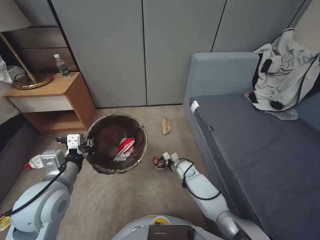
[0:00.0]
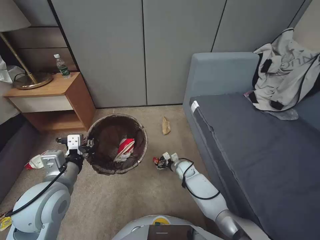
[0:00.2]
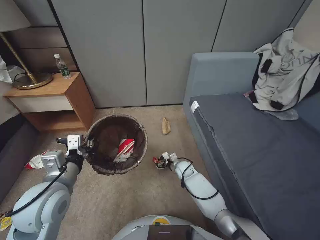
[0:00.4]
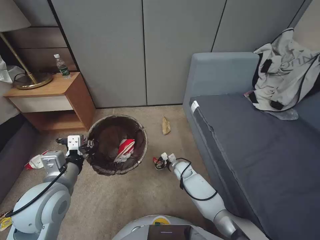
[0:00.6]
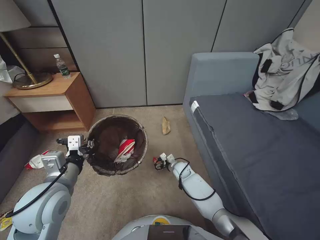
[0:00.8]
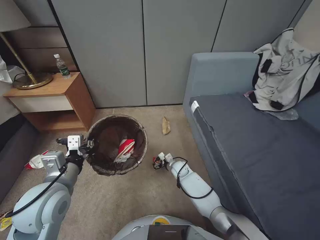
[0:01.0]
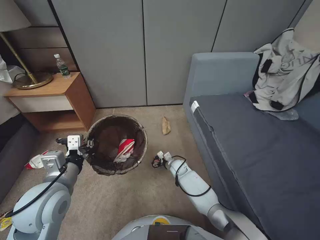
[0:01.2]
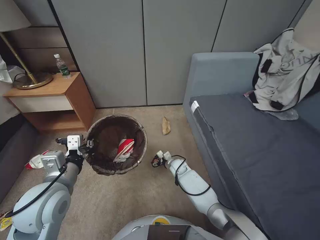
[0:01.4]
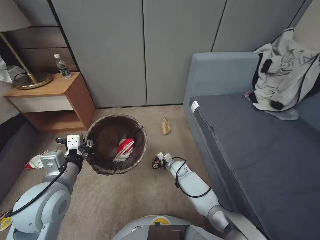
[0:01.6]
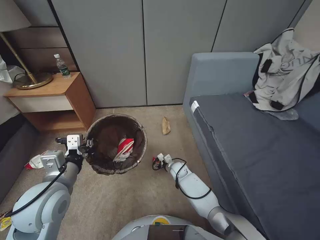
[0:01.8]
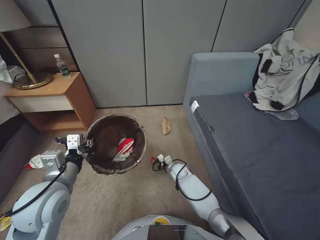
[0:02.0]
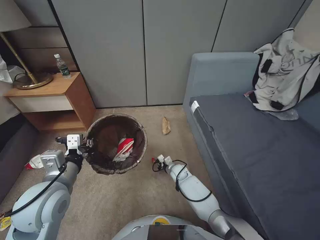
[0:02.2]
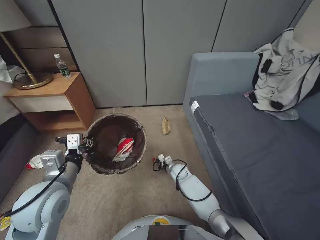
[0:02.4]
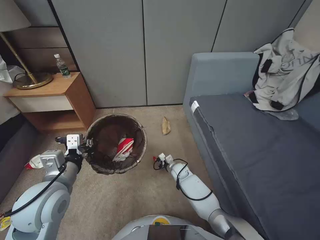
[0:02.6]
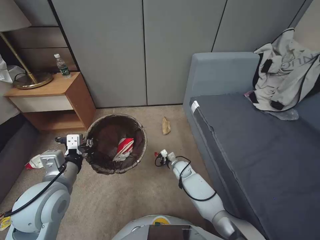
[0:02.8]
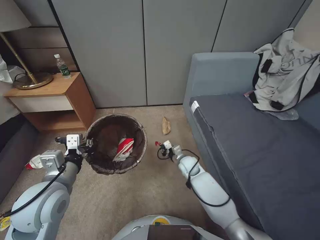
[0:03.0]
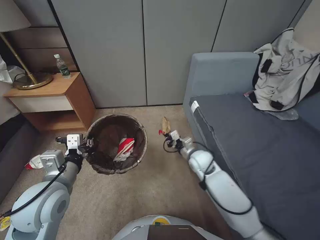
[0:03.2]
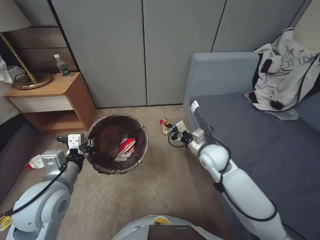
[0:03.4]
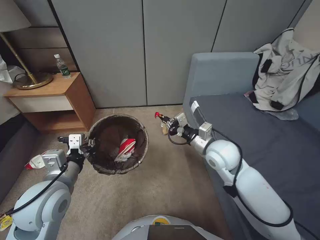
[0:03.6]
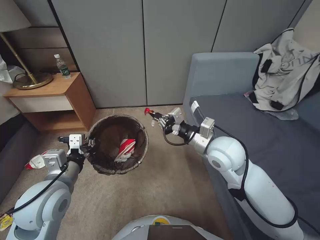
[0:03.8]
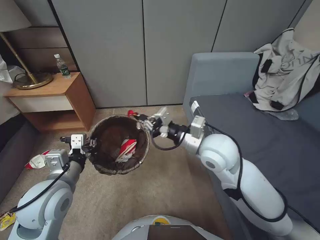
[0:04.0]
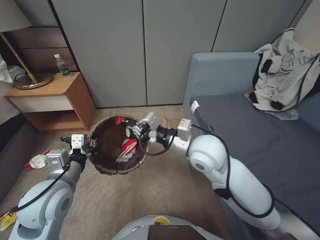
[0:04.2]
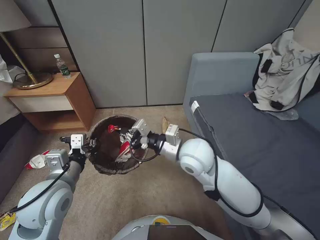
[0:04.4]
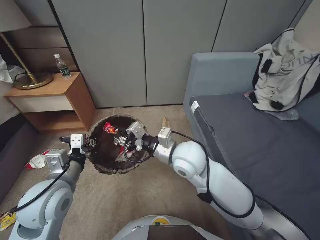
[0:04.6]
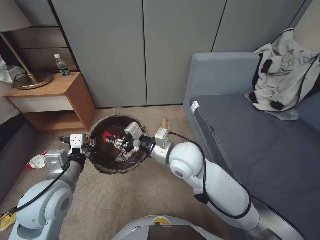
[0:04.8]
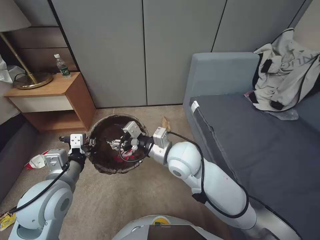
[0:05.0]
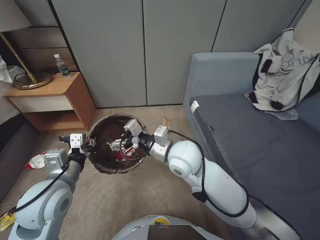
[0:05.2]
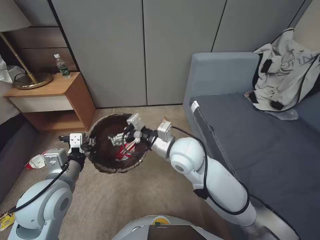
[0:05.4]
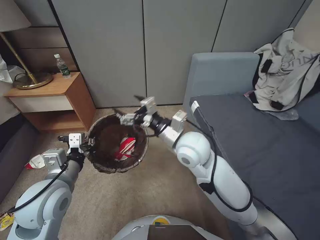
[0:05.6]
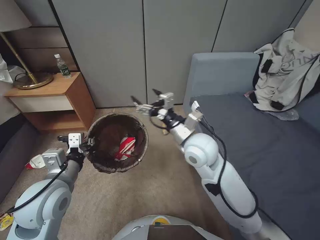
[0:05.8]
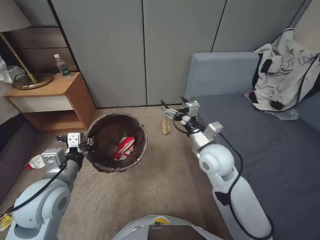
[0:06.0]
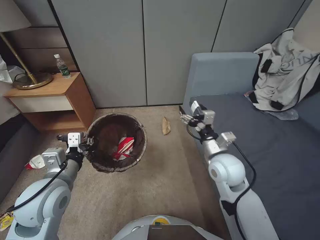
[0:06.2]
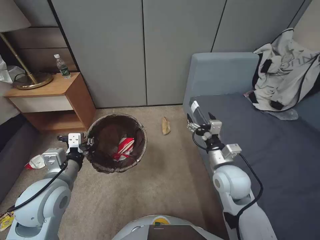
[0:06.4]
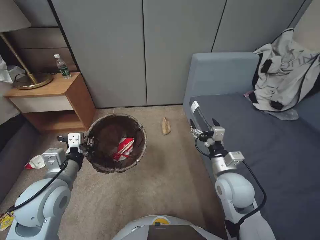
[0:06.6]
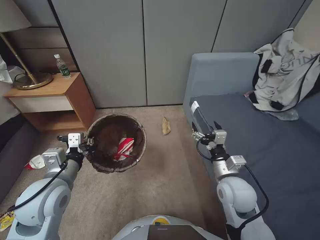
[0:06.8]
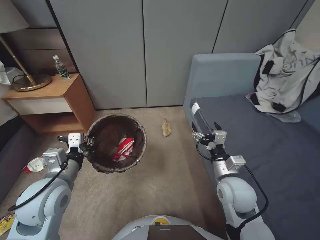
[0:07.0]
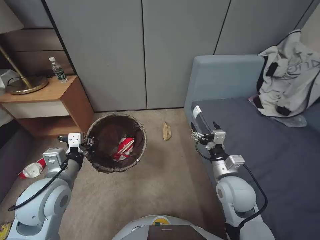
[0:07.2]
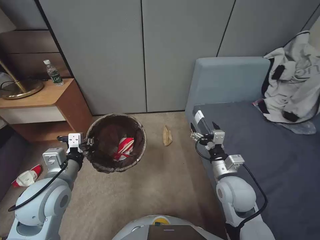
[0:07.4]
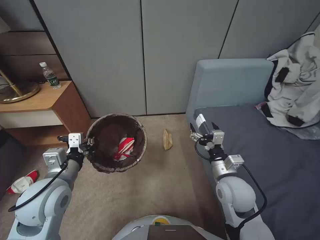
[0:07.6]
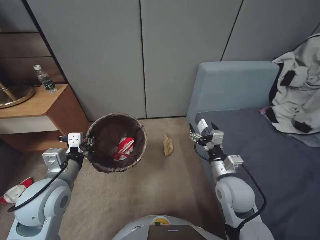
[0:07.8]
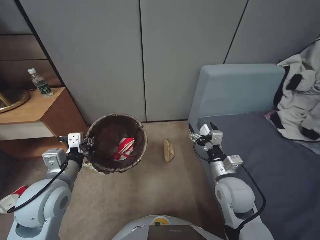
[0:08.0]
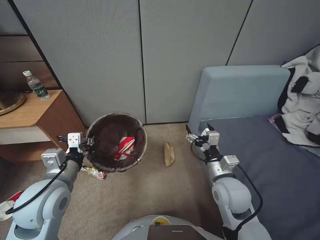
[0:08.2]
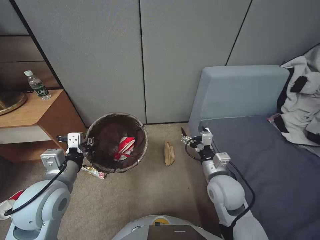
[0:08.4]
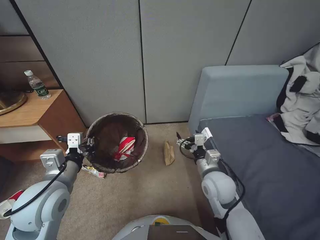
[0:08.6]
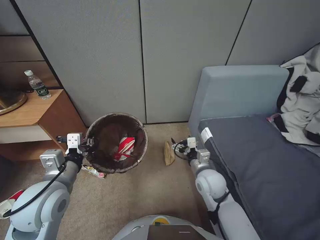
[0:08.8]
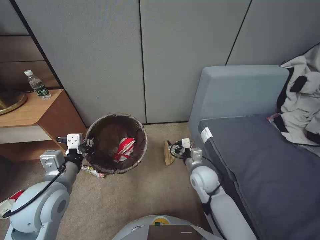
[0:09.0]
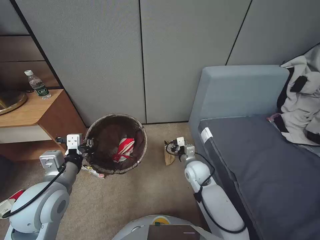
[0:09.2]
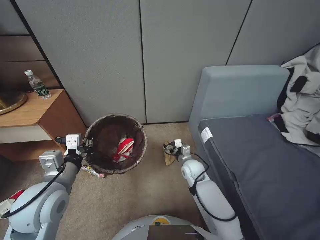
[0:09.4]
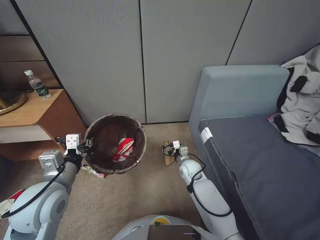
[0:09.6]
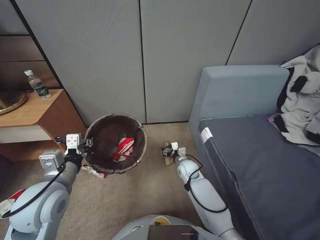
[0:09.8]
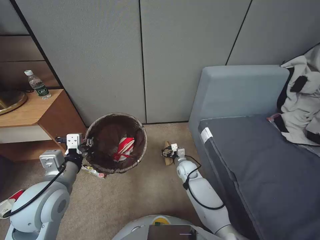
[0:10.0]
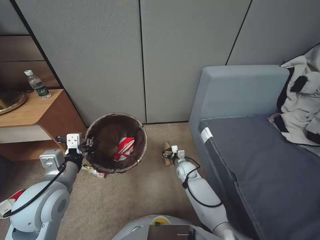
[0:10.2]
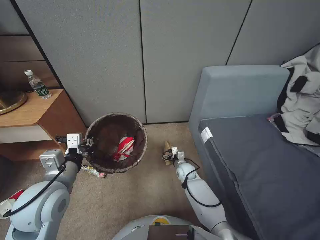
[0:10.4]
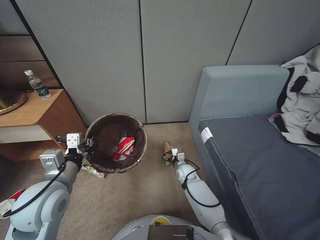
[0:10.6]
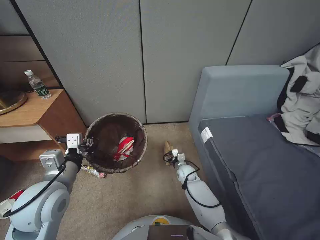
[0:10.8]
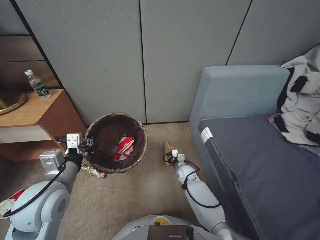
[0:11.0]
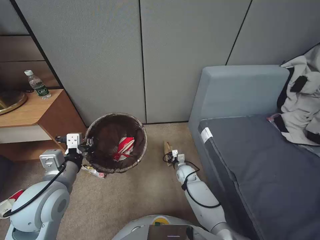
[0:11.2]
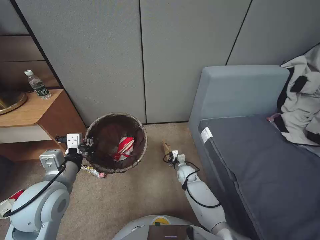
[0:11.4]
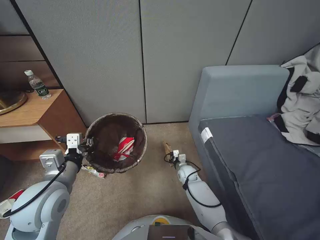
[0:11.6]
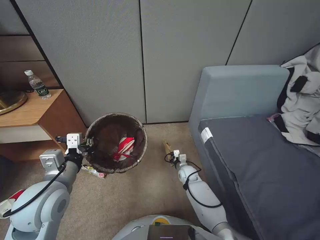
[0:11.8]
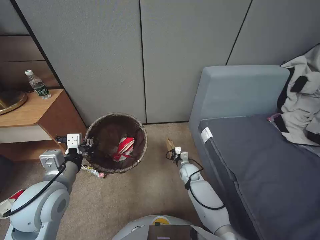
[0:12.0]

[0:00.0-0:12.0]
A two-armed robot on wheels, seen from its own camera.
Task of the whole recording: Pick up the trash bin, then pick up the garbage from the floor and place it into the trash bin.
0:00.0 to 0:01.6: The grippers make only small movements.
0:01.6 to 0:03.0: The right gripper ends up roughly 5 cm from where it was, and closes.
0:03.0 to 0:04.4: The right gripper goes roughly 30 cm upward.
0:04.4 to 0:06.0: The right gripper ends up approximately 5 cm from where it was, and opens.
0:06.0 to 0:07.6: The right gripper goes approximately 15 cm downward, to the right and backward.
0:07.6 to 0:09.0: The right gripper moves downward, forward and to the left, approximately 10 cm.
0:09.0 to 0:10.4: The right gripper moves downward and forward, roughly 20 cm.
0:10.4 to 0:12.0: The right gripper closes up.

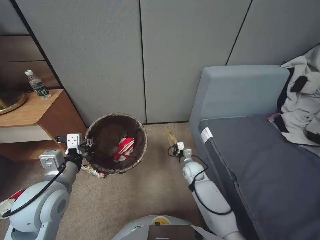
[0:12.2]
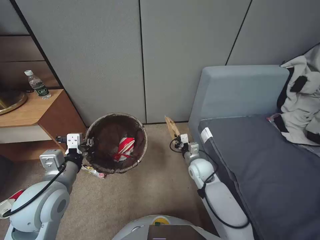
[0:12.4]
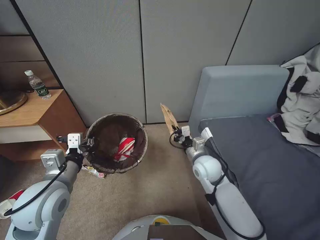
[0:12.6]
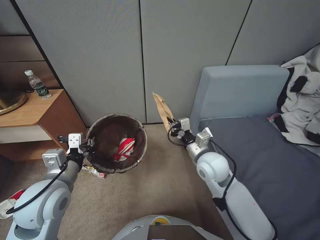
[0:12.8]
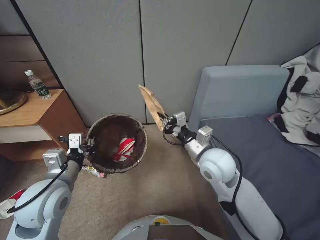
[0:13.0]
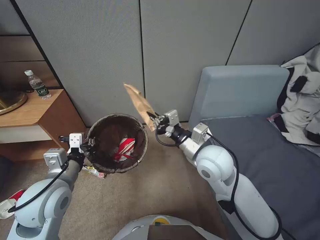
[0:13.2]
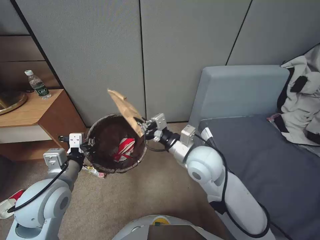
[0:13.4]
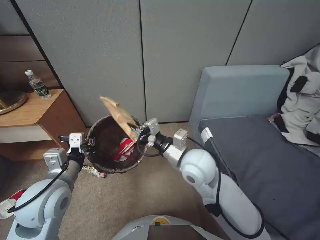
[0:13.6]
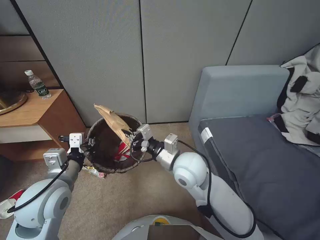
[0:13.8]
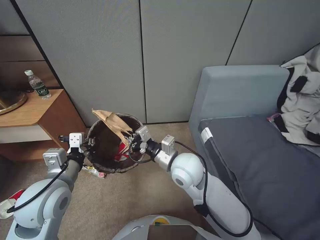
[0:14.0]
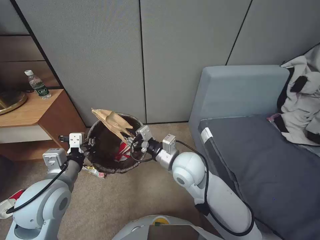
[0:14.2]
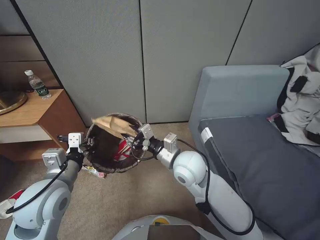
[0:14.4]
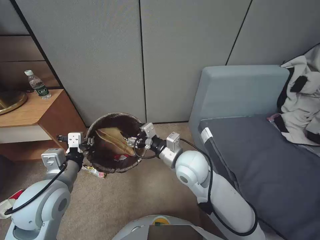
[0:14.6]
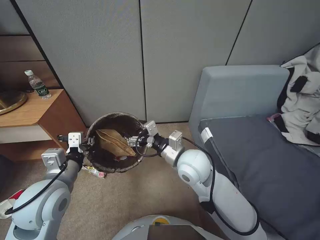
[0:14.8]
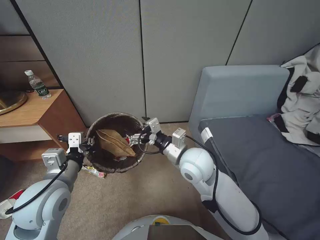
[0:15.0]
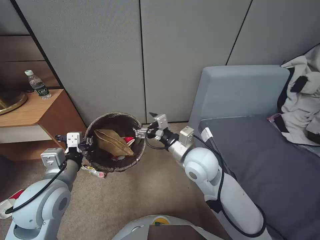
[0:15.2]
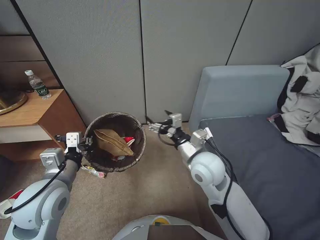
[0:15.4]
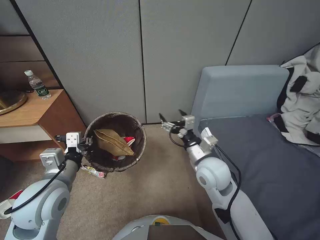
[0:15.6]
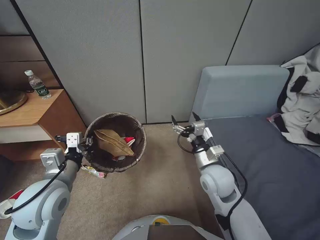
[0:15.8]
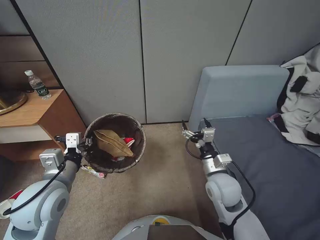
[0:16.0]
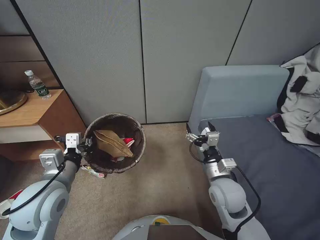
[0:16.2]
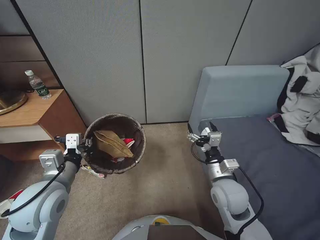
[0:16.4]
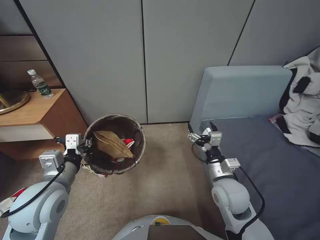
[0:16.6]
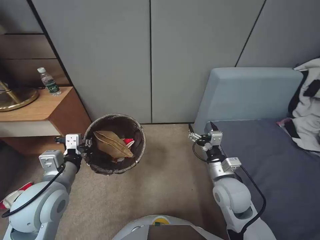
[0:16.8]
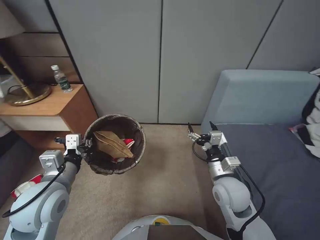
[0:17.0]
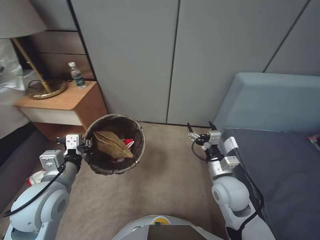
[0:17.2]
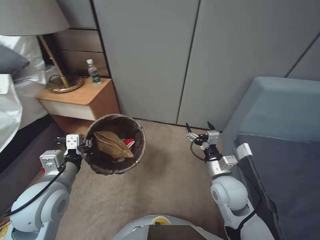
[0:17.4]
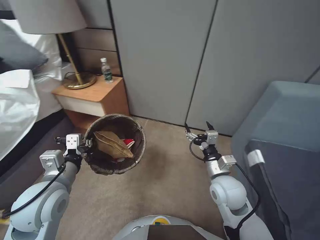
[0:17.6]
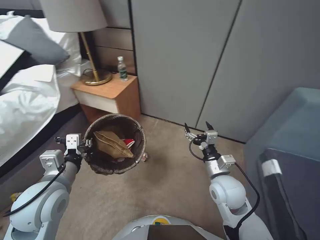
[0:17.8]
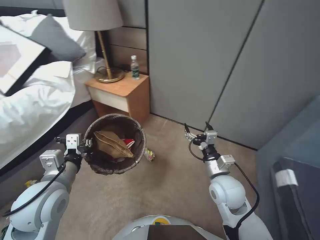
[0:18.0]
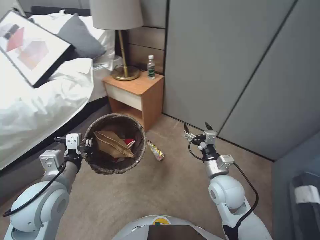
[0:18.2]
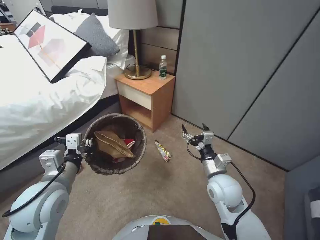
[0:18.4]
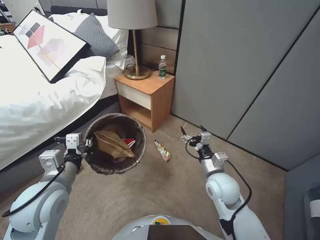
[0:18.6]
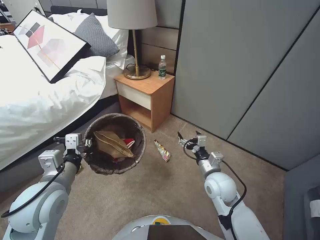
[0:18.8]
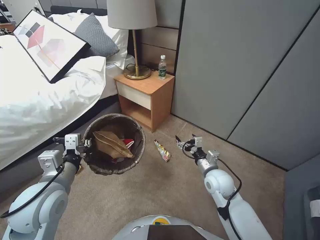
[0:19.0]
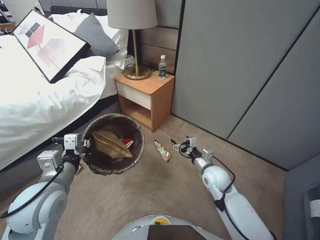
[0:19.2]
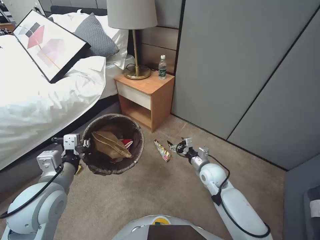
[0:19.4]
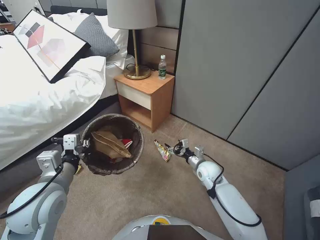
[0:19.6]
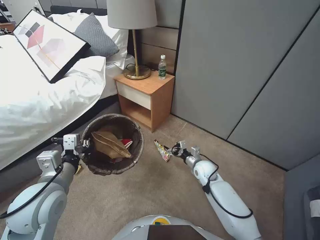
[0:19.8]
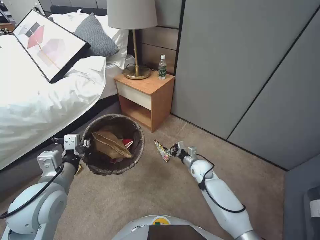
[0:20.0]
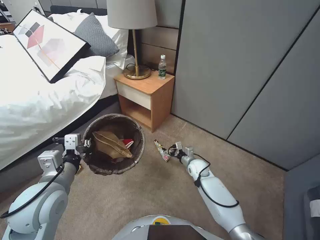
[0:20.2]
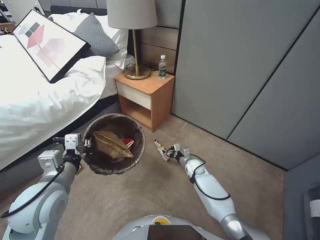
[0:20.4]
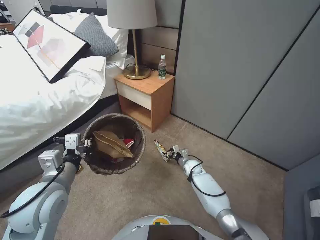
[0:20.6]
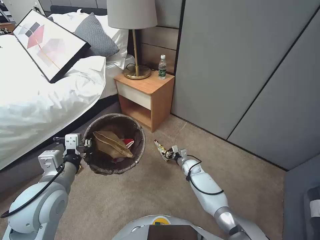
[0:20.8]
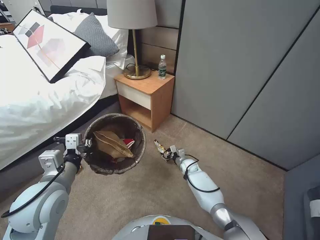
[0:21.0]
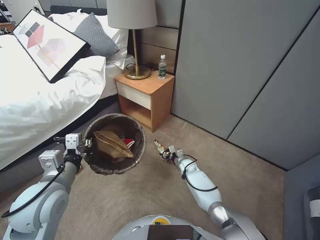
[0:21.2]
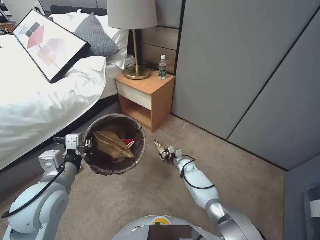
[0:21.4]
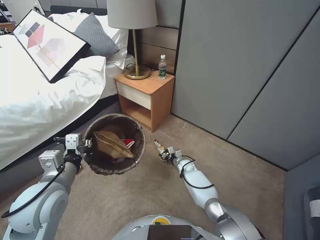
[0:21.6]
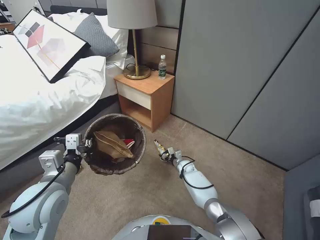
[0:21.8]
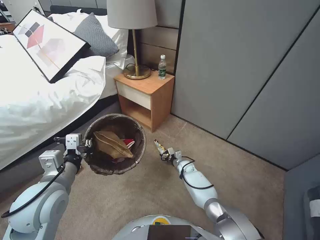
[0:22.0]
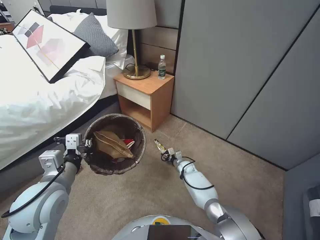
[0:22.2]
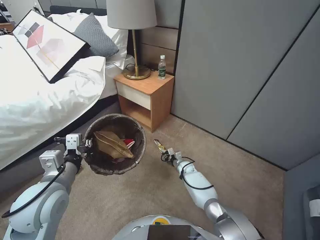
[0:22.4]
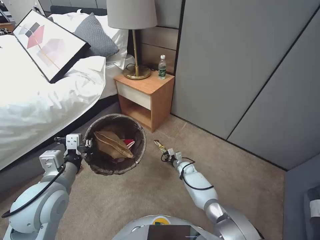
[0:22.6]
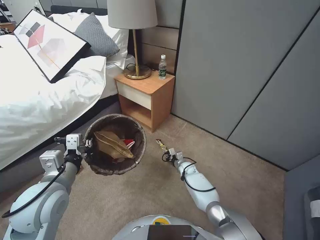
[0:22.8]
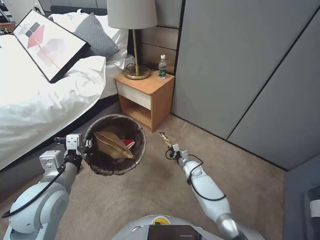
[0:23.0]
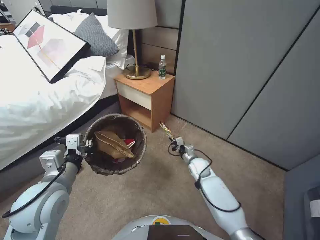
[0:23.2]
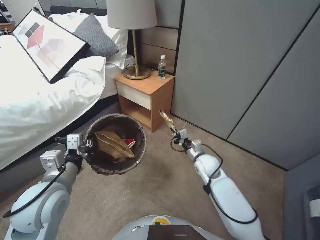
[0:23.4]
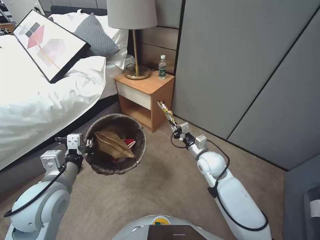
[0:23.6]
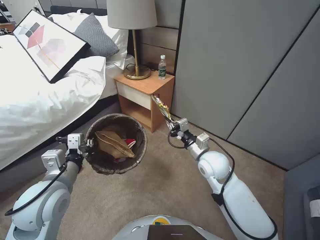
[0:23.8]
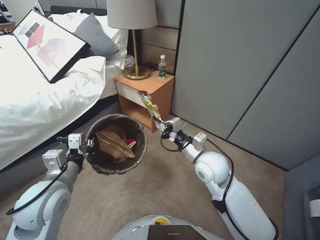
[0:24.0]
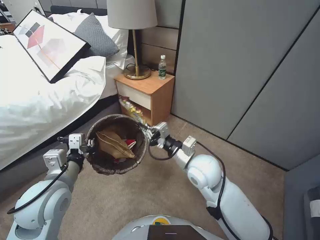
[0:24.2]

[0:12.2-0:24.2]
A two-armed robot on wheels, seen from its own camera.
Task of the whole recording: Pick up the trash bin, then pick up the garbage from the floor and place it into the trash bin.
0:12.2 to 0:13.8: The right gripper goes approximately 30 cm upward.
0:13.8 to 0:15.2: The right gripper opens its fingers.
0:15.2 to 0:16.6: The right gripper is displaced to the right, downward and backward by roughly 15 cm.
0:18.2 to 0:19.8: The right gripper goes roughly 15 cm downward and forward.
0:19.8 to 0:21.2: The right gripper goes some 15 cm downward and forward.
0:21.2 to 0:22.6: The right gripper closes.
0:22.6 to 0:24.2: The right gripper heads upward, covering approximately 35 cm.
